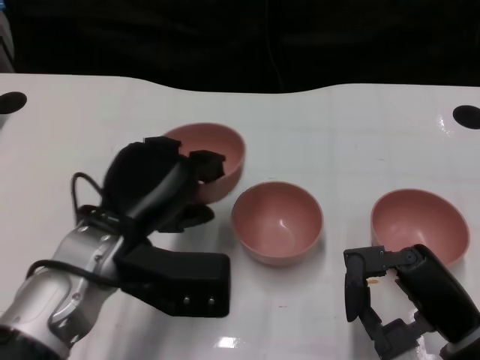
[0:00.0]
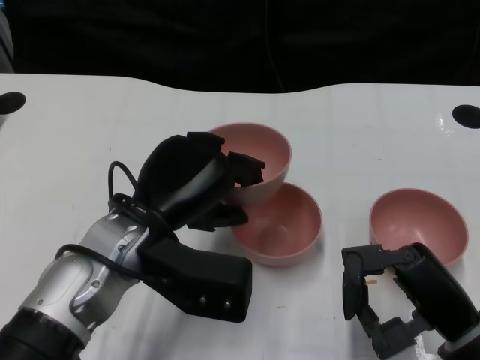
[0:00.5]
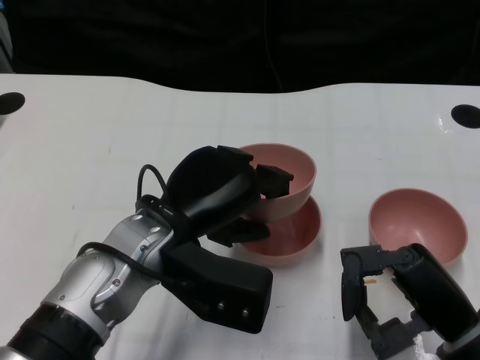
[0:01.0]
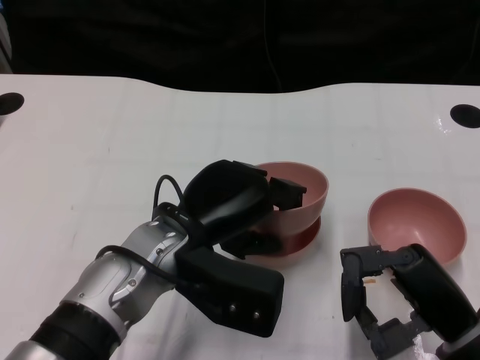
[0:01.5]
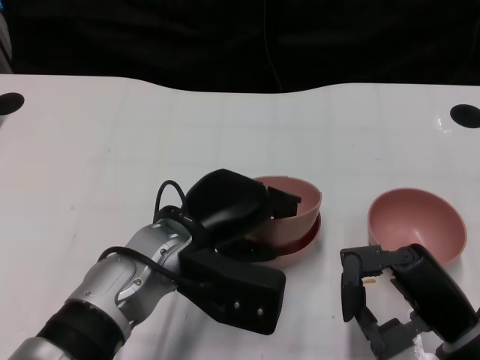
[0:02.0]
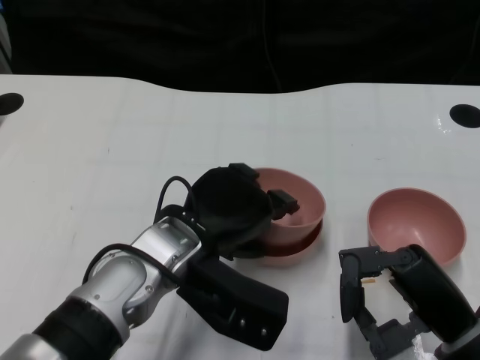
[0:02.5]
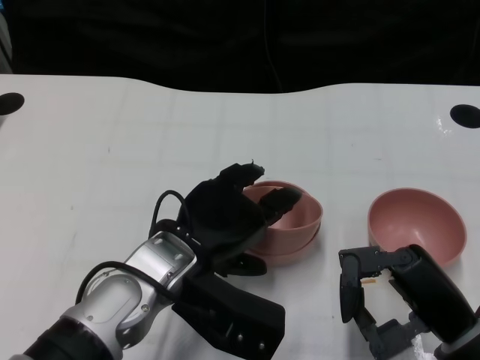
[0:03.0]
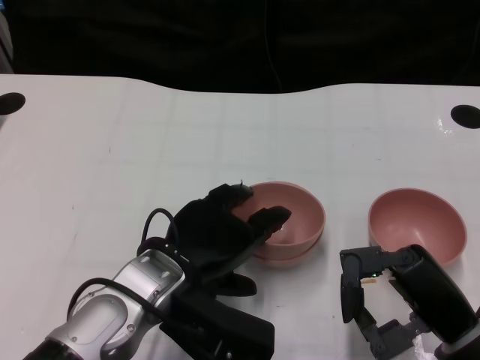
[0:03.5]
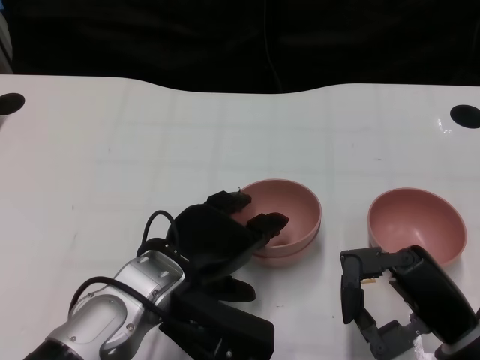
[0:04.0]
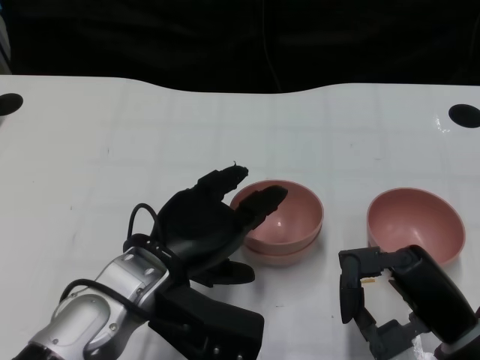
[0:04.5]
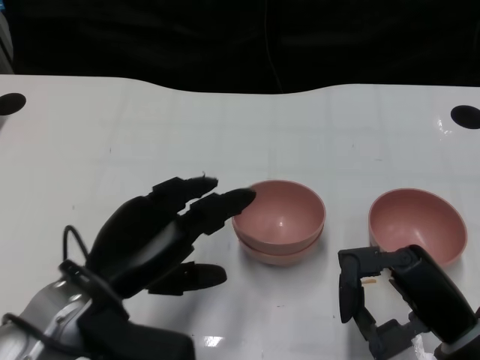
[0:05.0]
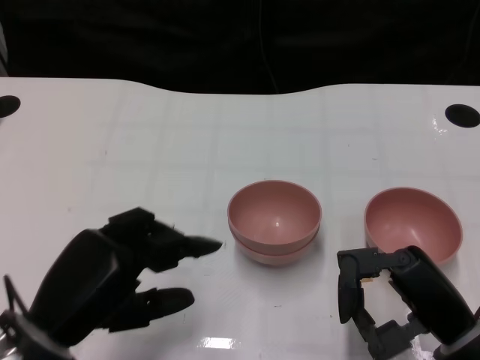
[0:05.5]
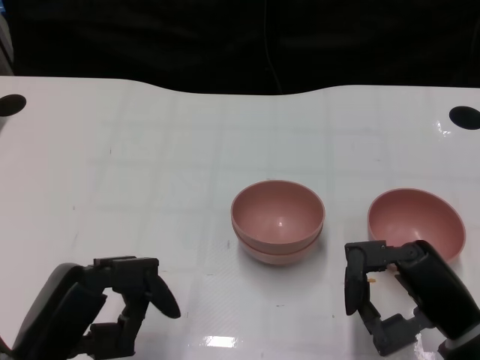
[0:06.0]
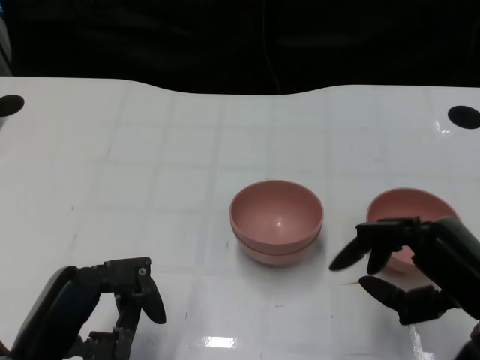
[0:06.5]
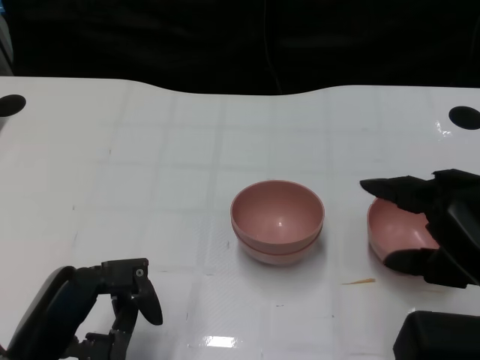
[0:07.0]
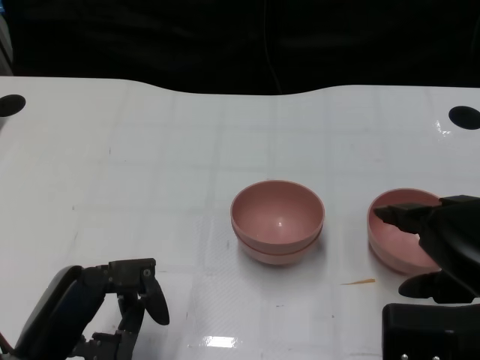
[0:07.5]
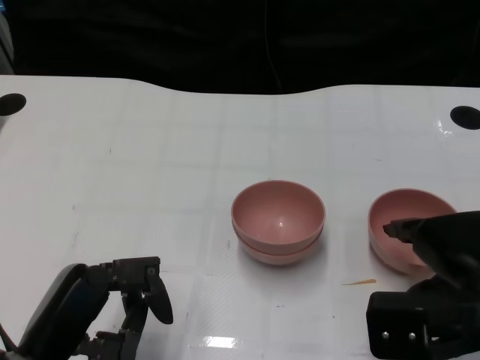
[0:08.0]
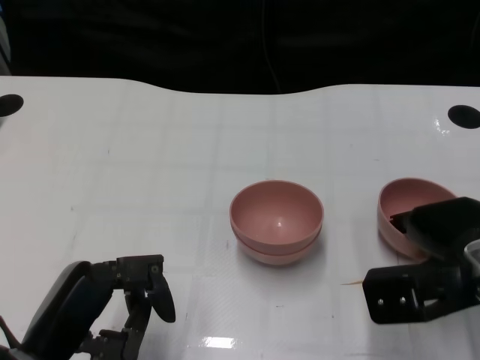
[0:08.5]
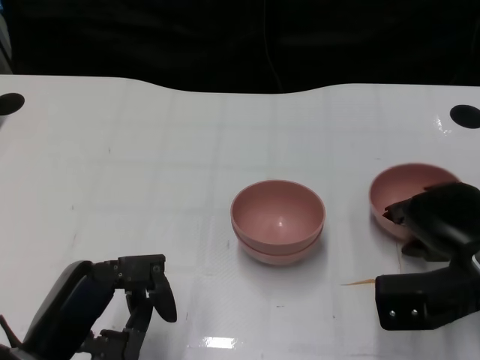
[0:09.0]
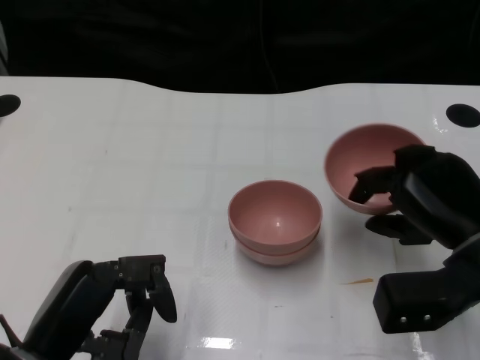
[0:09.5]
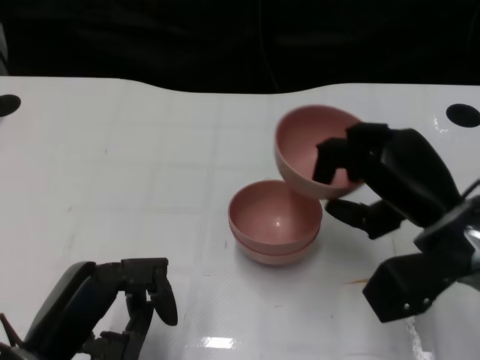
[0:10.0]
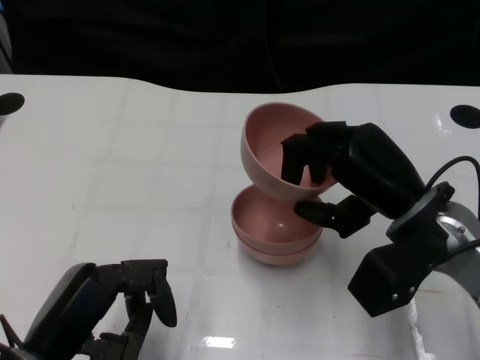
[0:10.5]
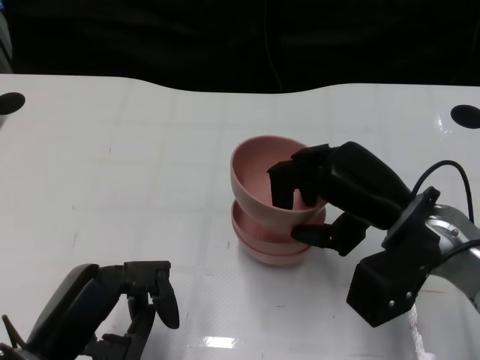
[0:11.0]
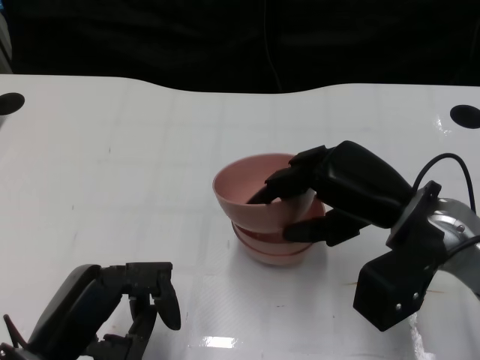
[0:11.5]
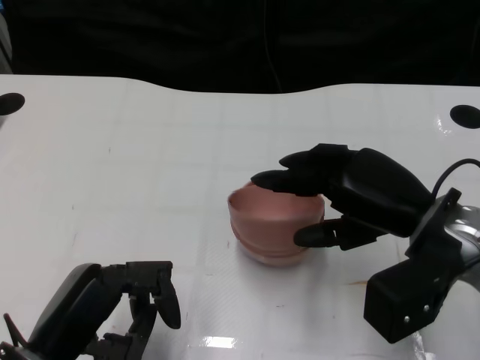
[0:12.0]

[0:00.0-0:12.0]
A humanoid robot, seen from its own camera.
Task of the whole recording: Pick up the bowl on one side of the table and place it on top of the middle bowl, then pick up the bowl on the other side of the table and place it on top of the middle bowls.
Step, 0:00.0 to 0:04.0: Place the bowl on the left onto the bowl in the middle with left gripper.
Step, 0:04.5 to 0:09.0: Grasp the bowl on the right with the right gripper.
0:00.0 to 0:02.0: The left hand shifts approximately 5 cm to the right.
0:02.0 to 0:04.0: The hands stay close to where they were, moving slightly.
0:04.0 to 0:06.0: The left hand goes approximately 15 cm to the left and backward.
0:06.0 to 0:08.0: The right hand moves upward, roughly 5 cm.
0:08.0 to 0:10.0: The right hand travels forward by about 5 cm.

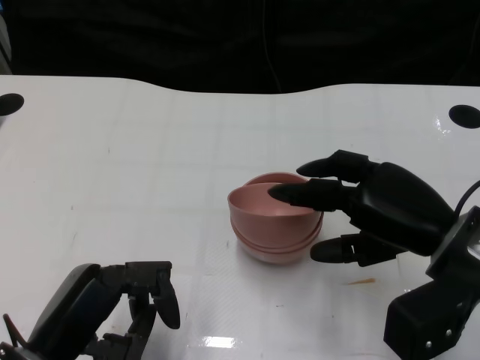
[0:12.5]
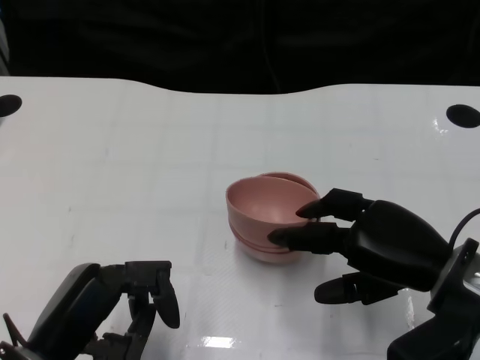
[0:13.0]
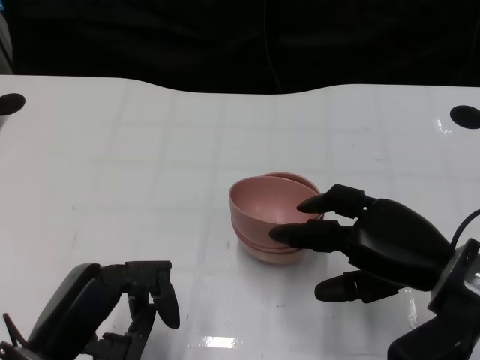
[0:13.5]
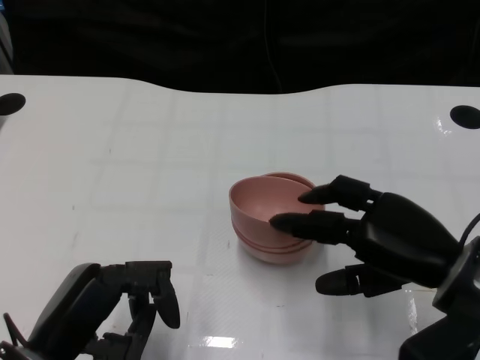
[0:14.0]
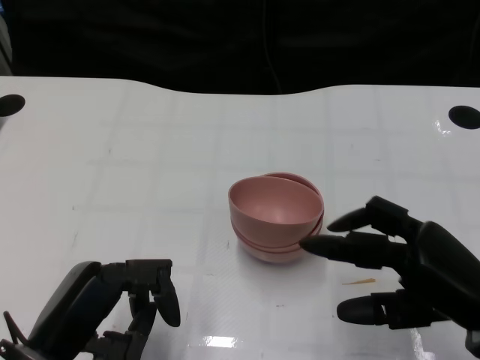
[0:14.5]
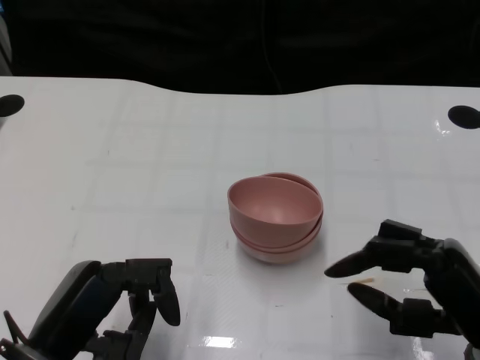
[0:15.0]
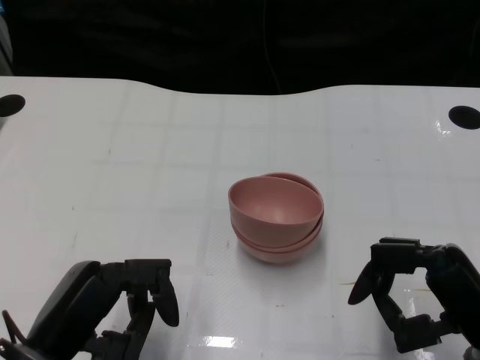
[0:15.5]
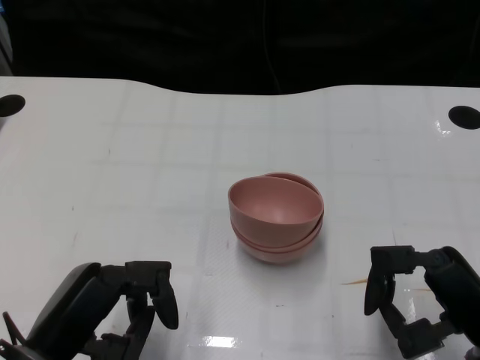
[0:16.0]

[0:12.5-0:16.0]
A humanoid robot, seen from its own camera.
Task of the whole recording: Pick up the bowl on one side of the table and place it on top of the middle bowl, then pick up the bowl on the other side of the table and place it on top of the middle bowls.
0:12.5 to 0:14.5: The right hand travels backward by about 5 cm.

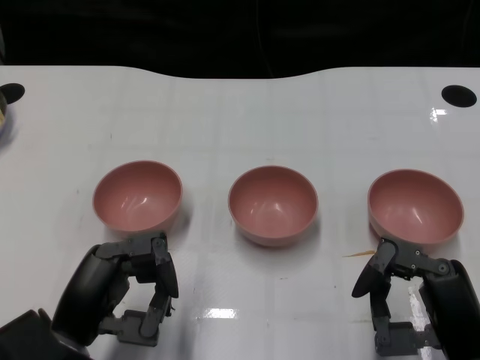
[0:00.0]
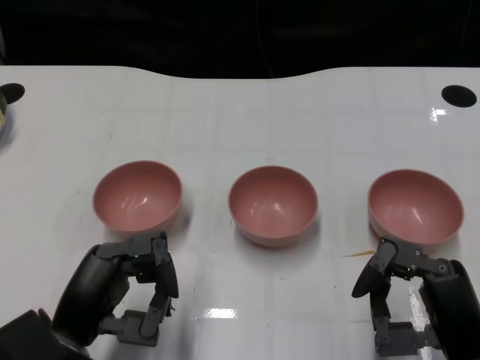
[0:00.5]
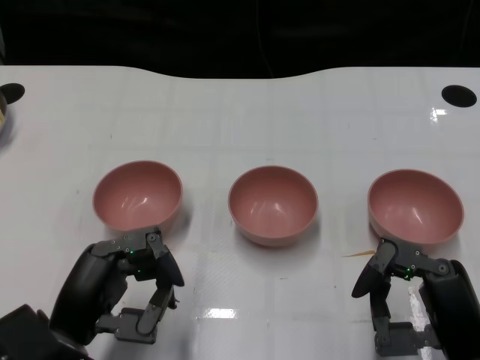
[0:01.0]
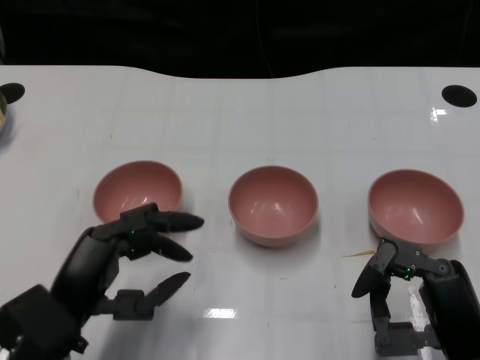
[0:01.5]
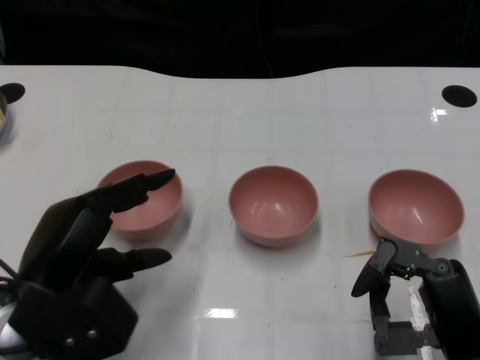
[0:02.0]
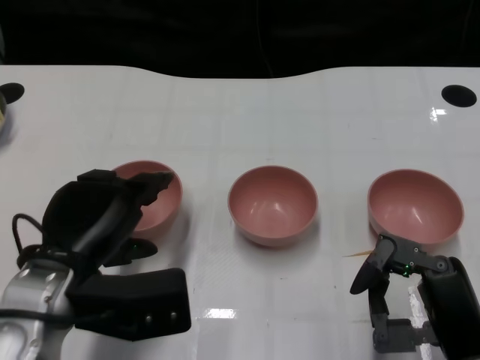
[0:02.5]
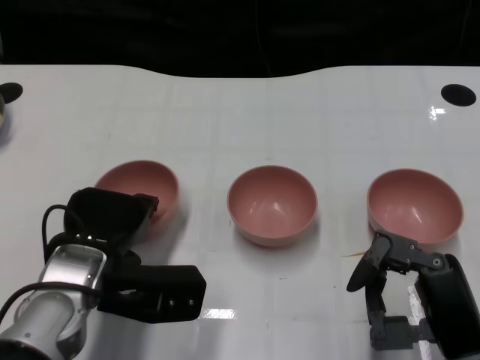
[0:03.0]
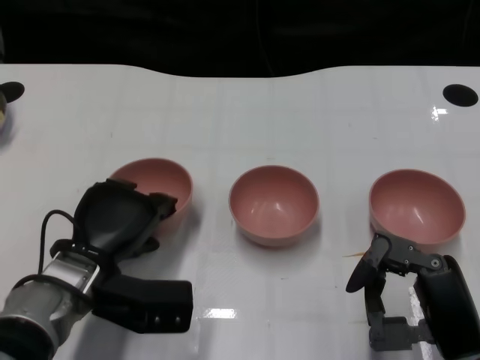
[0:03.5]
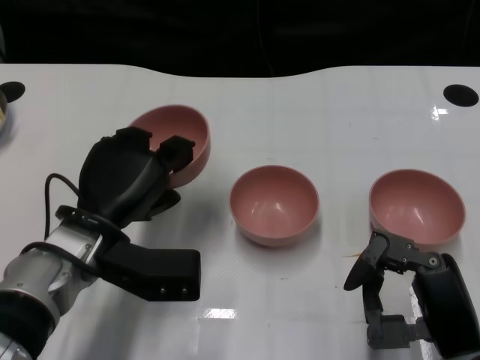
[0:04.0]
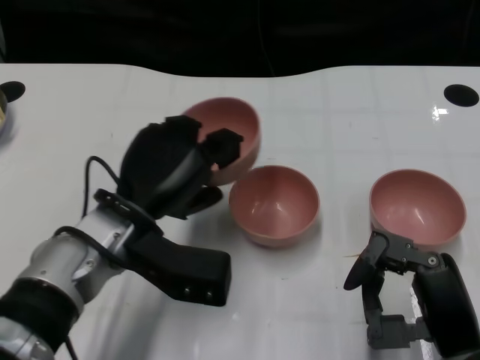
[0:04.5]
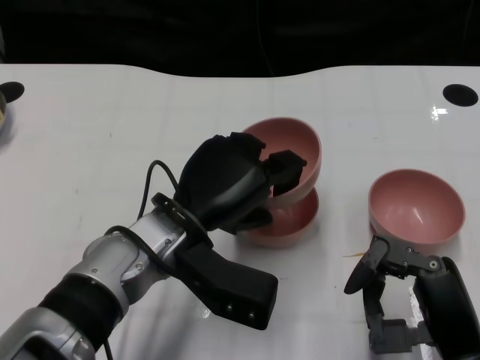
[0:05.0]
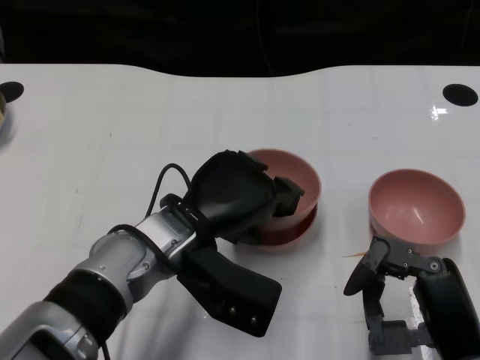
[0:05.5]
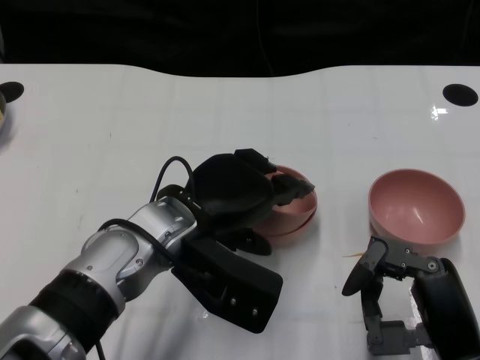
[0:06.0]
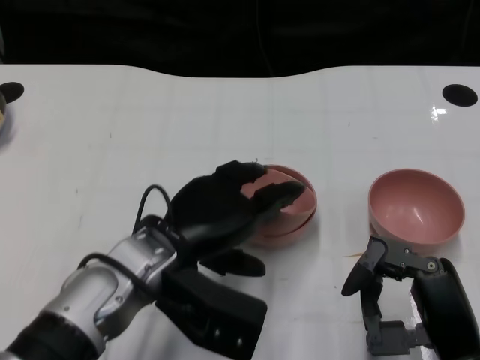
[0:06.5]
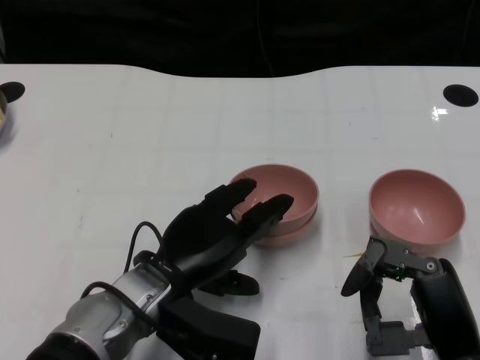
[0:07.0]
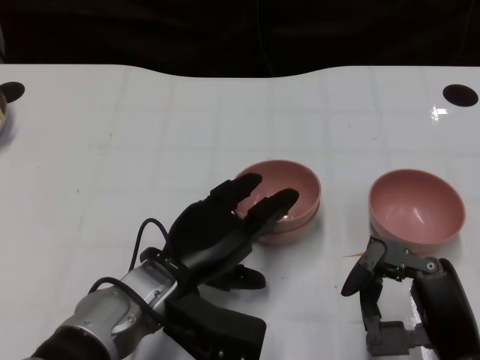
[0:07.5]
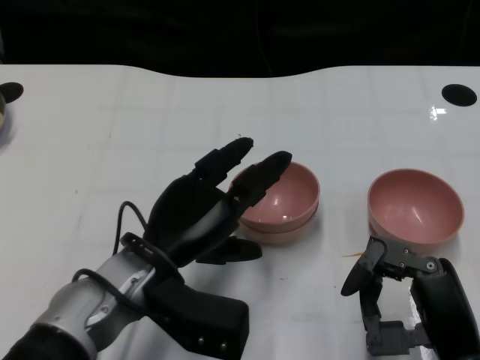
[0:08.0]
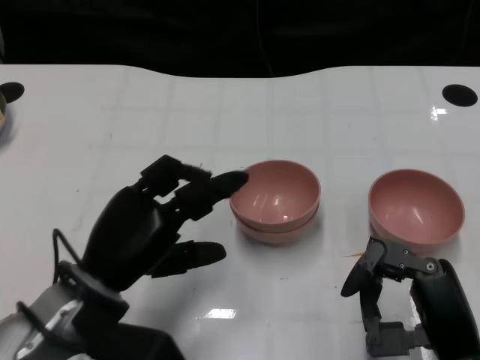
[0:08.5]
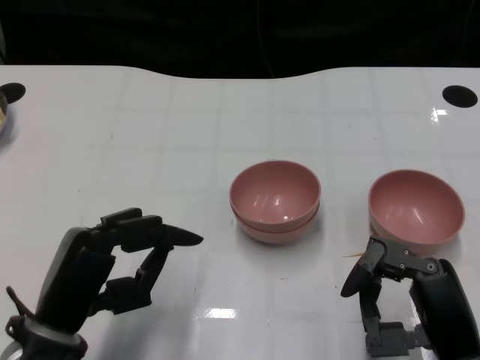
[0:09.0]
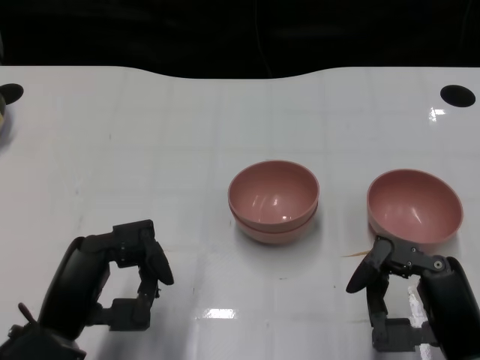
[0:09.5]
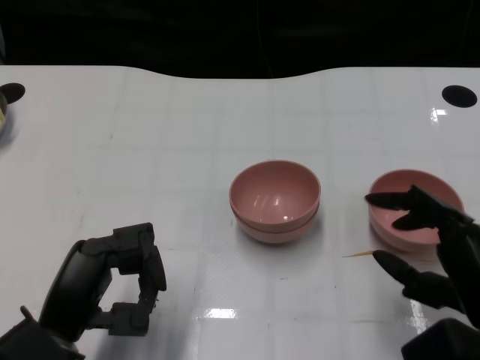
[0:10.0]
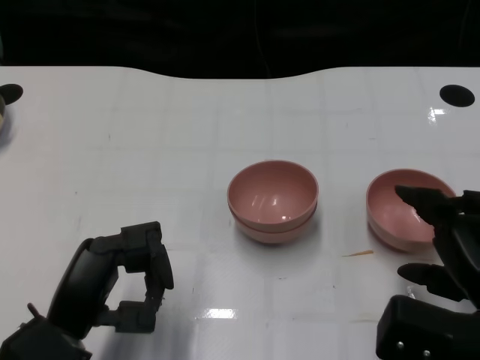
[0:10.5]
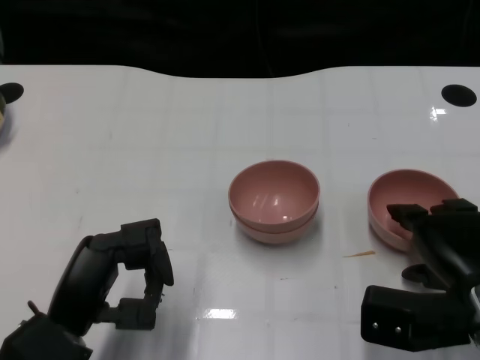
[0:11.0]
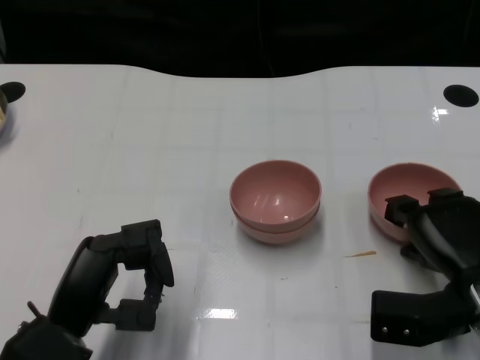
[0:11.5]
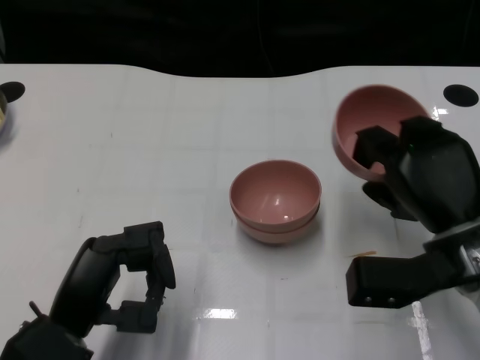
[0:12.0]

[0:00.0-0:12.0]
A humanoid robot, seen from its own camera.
Task of the whole recording: Pick up the bowl on one side of the table and place it on top of the middle bowl, then pick up the bowl on the other side of the table and place it on top of the middle bowls.
Step, 0:01.5 to 0:03.0: Grasp the bowl on the left with the left gripper.
Step, 0:04.0 to 0:08.0: Place the bowl on the left onto the bowl in the middle with left gripper.
Step, 0:08.5 to 0:11.5: Grasp the bowl on the right with the right gripper.
0:02.0 to 0:04.0: The left hand shifts about 10 cm forward.
0:04.0 to 0:06.0: The left hand moves to the right, approximately 10 cm.
0:06.0 to 0:08.0: The left hand changes place by approximately 5 cm.
0:08.0 to 0:10.0: The left hand moves to the left and backward, roughly 10 cm.
0:10.0 to 0:12.0: The right hand moves forward, some 10 cm.
